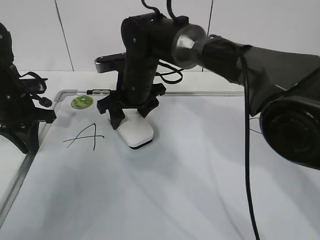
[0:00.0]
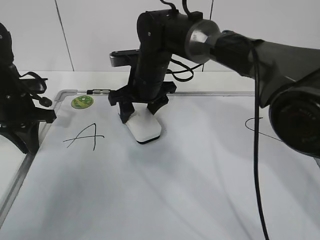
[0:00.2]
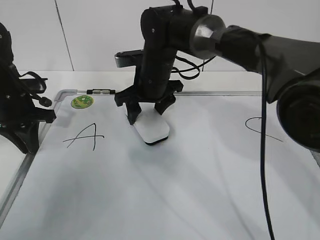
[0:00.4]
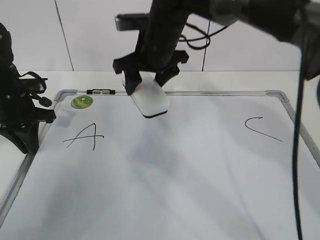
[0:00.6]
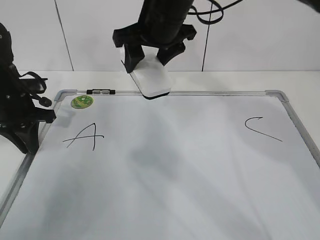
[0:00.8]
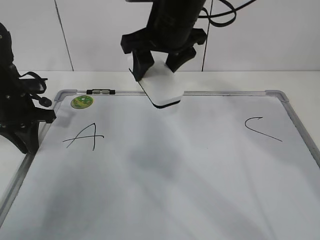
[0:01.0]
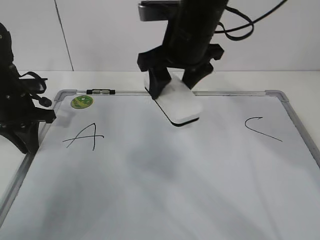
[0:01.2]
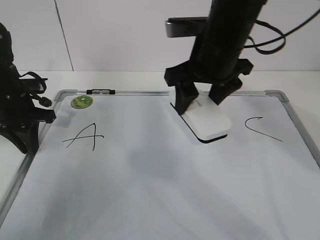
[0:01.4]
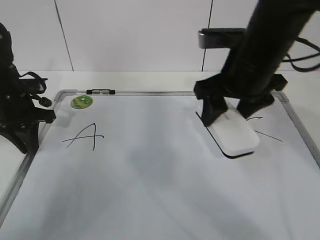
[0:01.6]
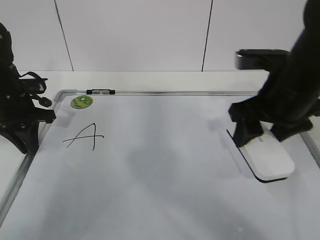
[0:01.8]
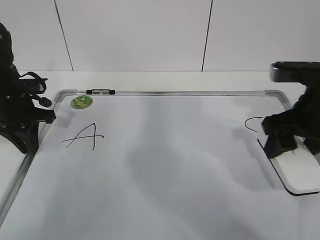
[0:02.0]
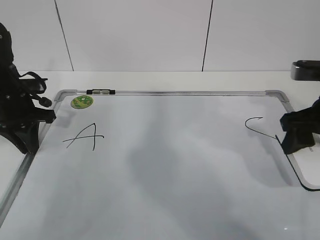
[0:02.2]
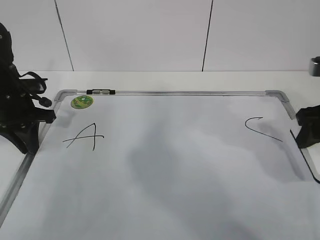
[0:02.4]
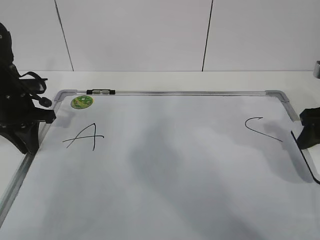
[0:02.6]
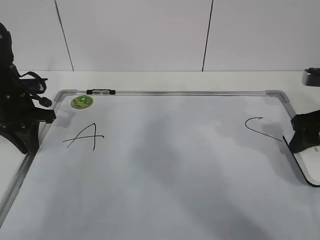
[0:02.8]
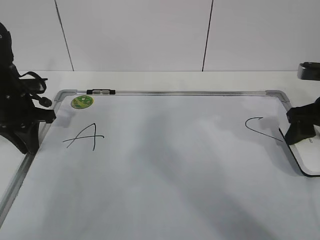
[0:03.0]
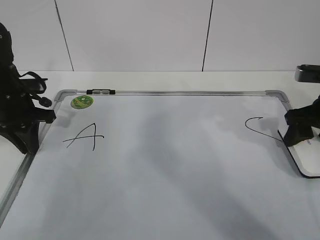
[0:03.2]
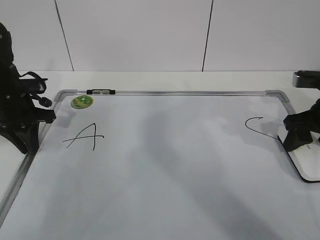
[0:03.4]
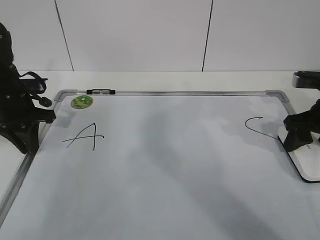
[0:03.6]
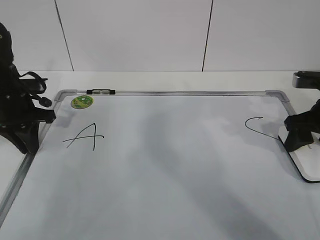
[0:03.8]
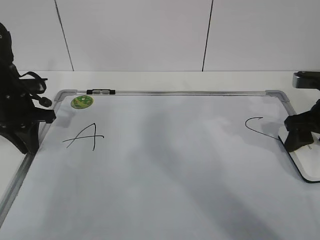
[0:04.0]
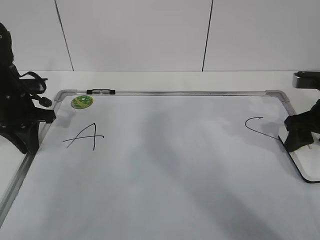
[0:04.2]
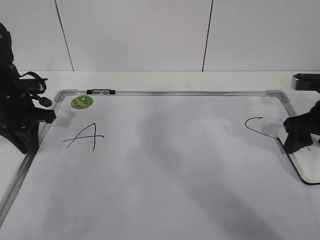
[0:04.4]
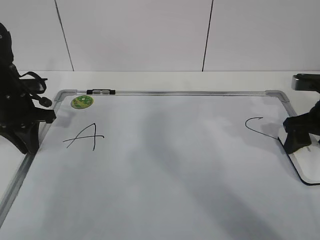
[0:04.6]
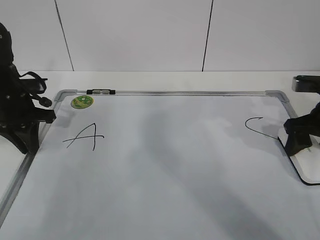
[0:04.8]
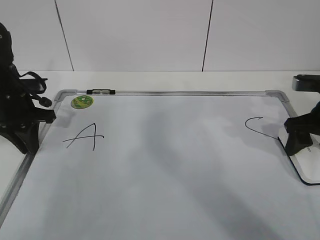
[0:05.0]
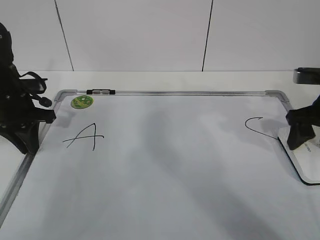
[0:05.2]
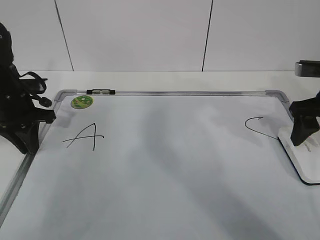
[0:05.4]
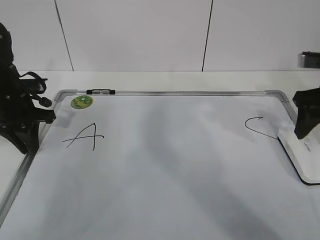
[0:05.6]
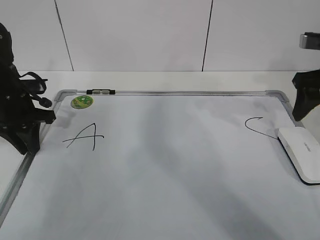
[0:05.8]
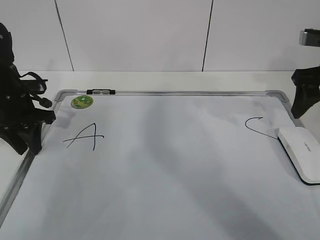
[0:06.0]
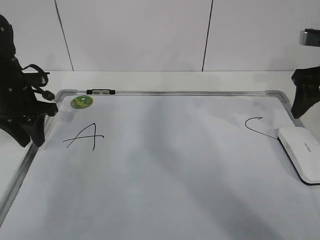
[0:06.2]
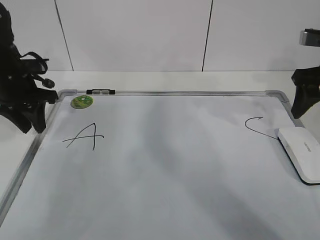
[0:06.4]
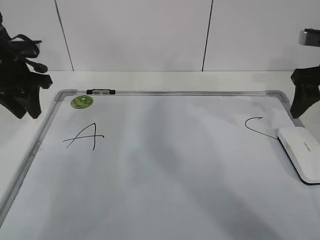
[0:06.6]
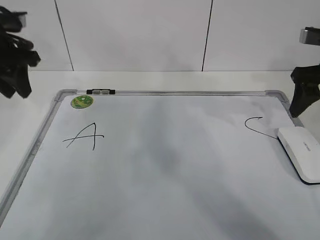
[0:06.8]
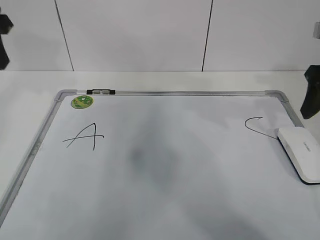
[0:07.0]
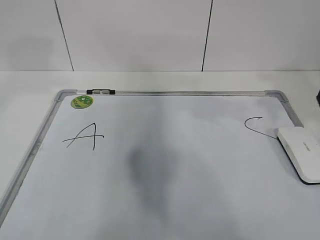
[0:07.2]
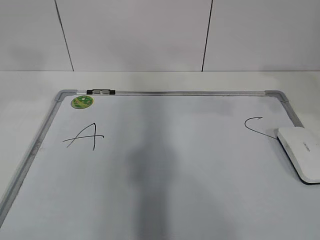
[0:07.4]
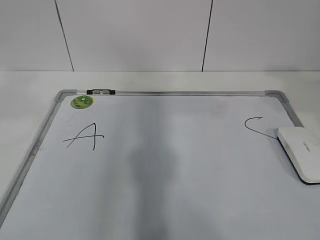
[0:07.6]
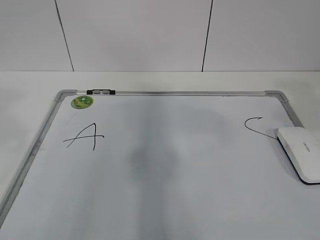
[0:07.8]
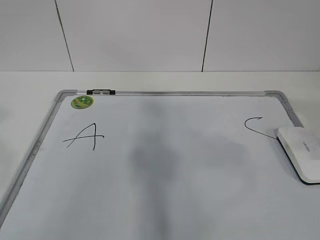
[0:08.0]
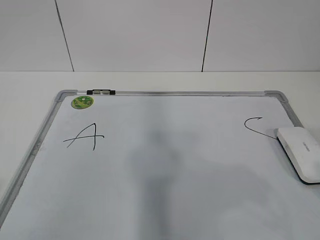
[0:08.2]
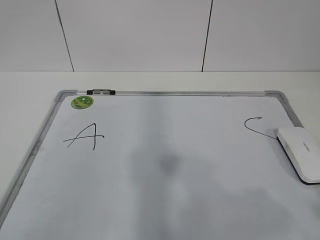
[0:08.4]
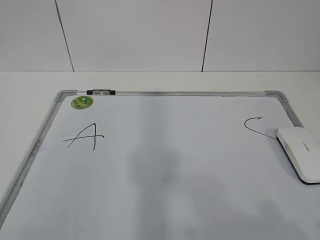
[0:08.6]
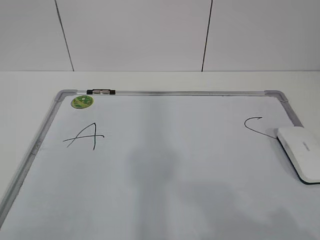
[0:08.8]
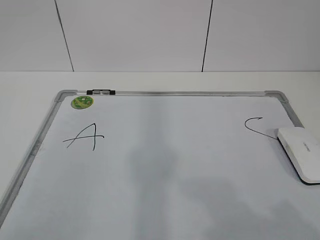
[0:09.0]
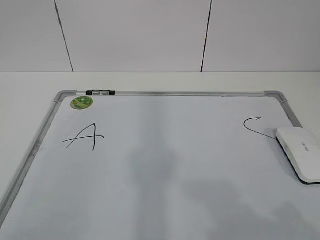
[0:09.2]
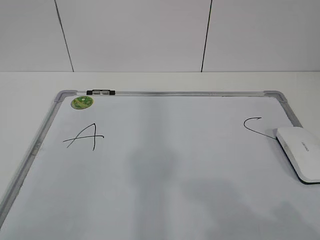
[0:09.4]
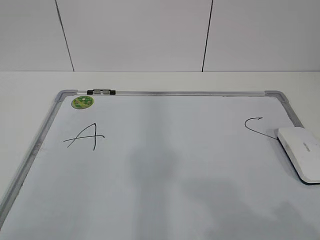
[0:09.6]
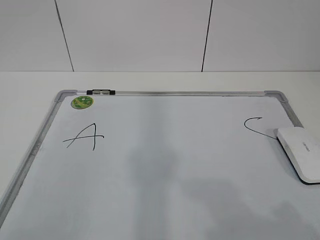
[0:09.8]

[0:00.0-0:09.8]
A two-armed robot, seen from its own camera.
Task of the whole recording: pick up the eraser on the blackboard and erase the letter "B".
0:00.0 to 0:01.4: The right gripper goes about 15 cm to the right, upward and backward.
0:01.4 to 0:02.8: The right gripper heads to the right, covering some 20 cm.
0:02.8 to 0:04.2: The grippers make only small movements.
0:04.2 to 0:05.6: The right gripper opens its fingers.
0:05.6 to 0:07.0: The right gripper shifts by roughly 5 cm. The left gripper heads upward, covering approximately 20 cm, and opens up.
0:07.0 to 0:08.4: The grippers both shift backward by roughly 35 cm.
